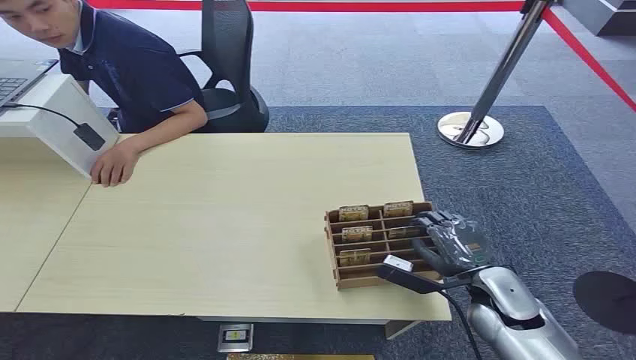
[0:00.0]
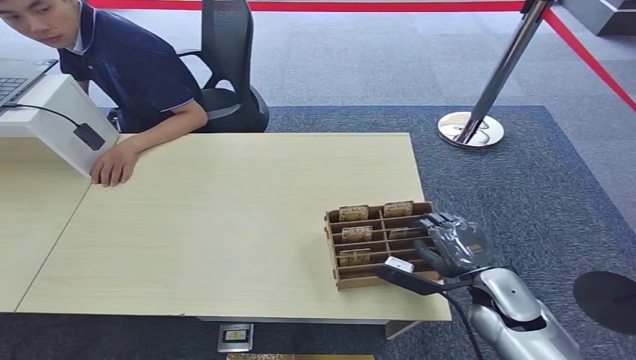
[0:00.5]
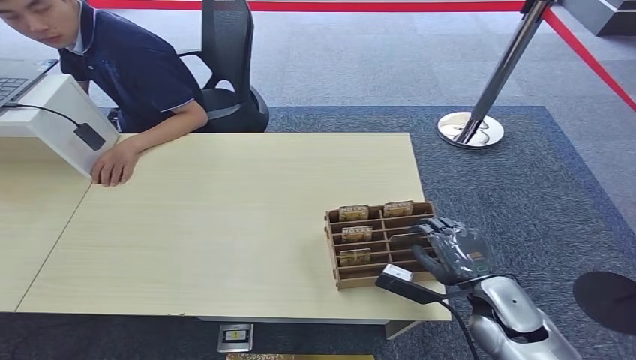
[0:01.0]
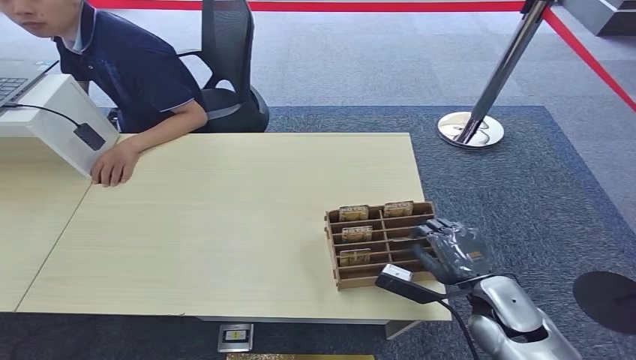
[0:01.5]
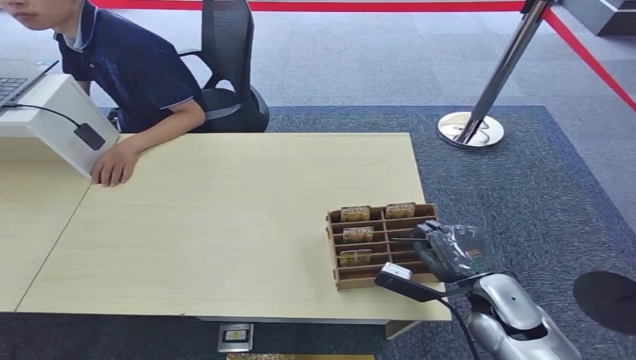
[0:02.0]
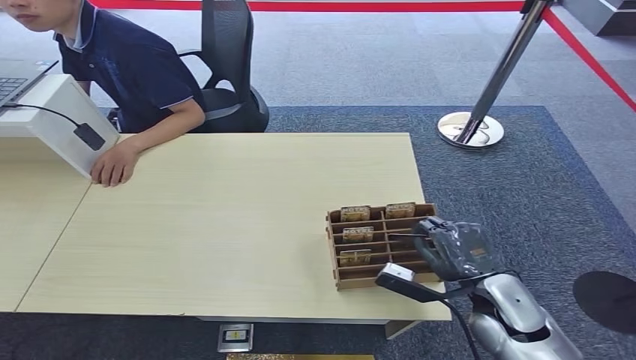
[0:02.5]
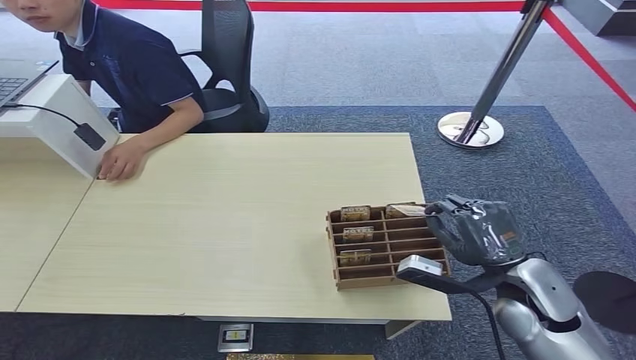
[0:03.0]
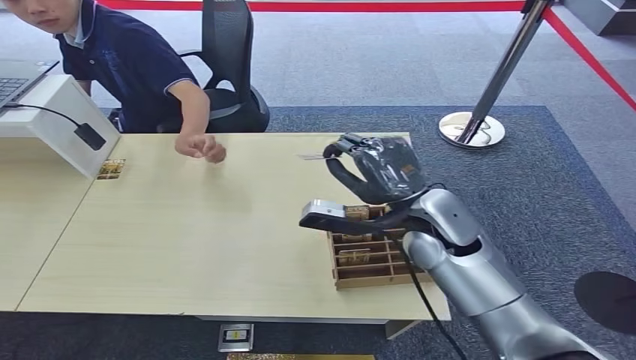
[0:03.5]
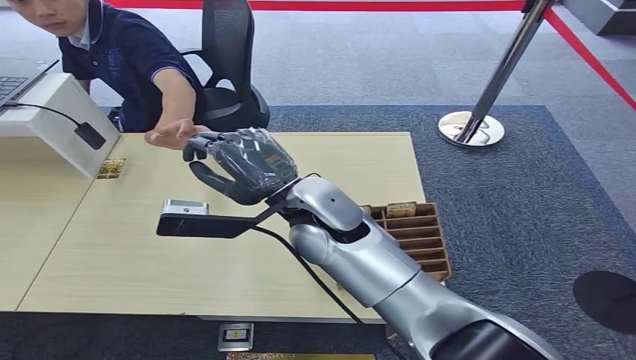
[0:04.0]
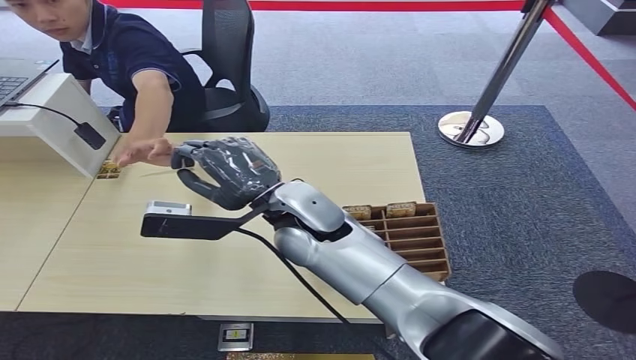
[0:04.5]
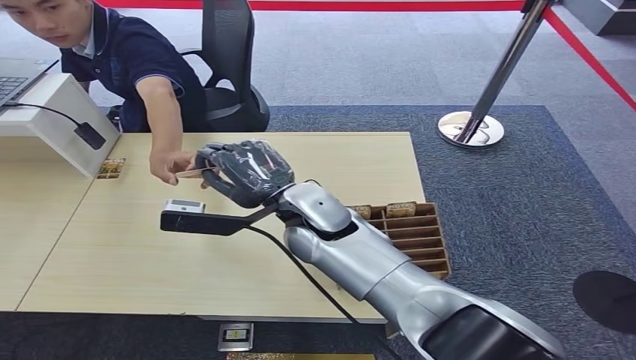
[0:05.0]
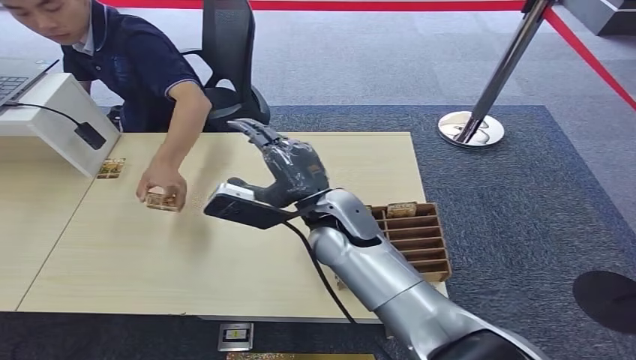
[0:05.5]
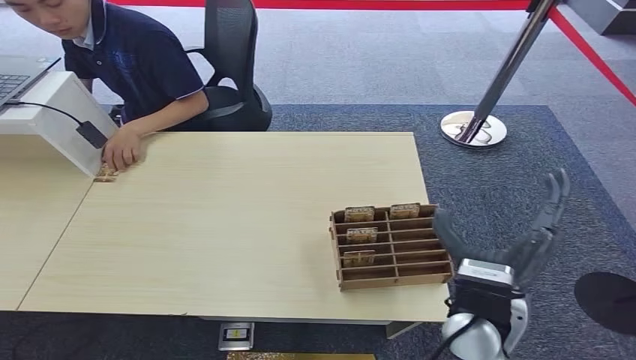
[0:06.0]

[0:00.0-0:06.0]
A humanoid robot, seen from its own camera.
Step, 0:00.0 to 0:03.0: Pick up the key card from the card box.
Step, 0:03.5 to 0:06.0: Hand the key card to the target.
0:02.0 to 0:04.0: The right hand heads to the left and upward, covering some 30 cm.

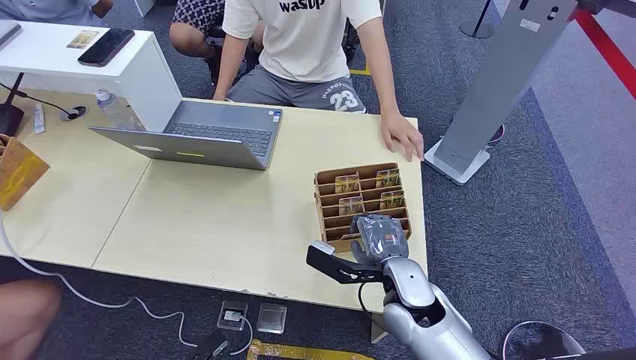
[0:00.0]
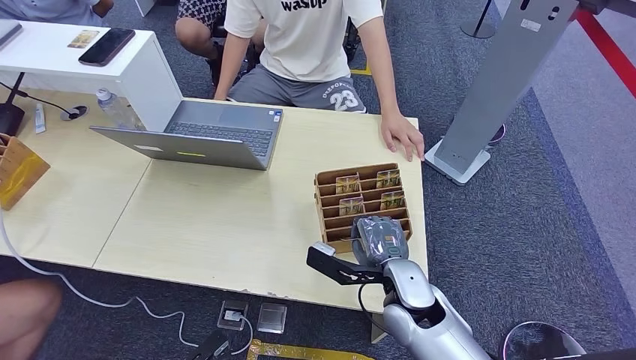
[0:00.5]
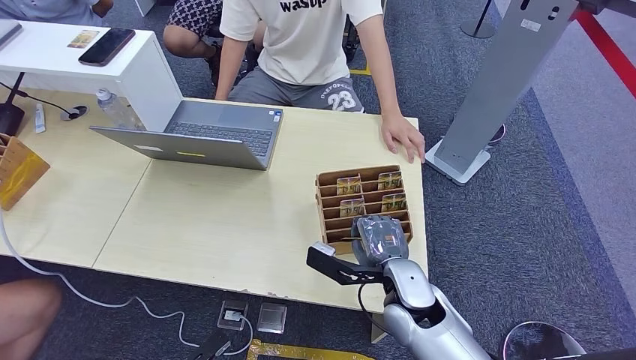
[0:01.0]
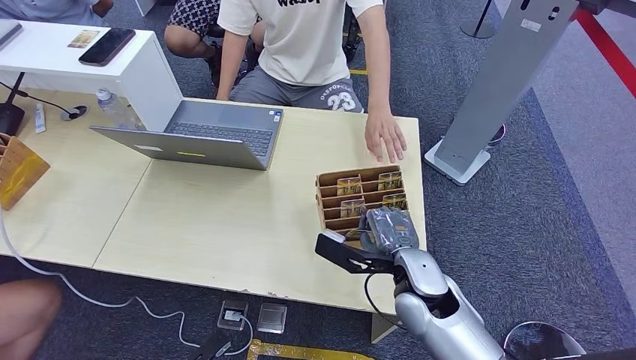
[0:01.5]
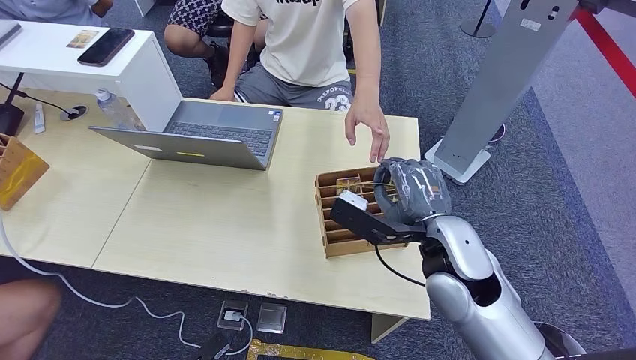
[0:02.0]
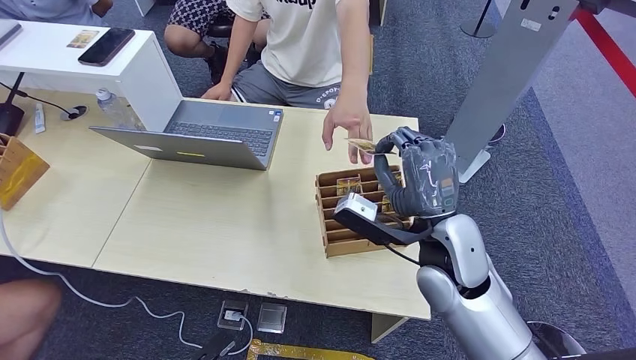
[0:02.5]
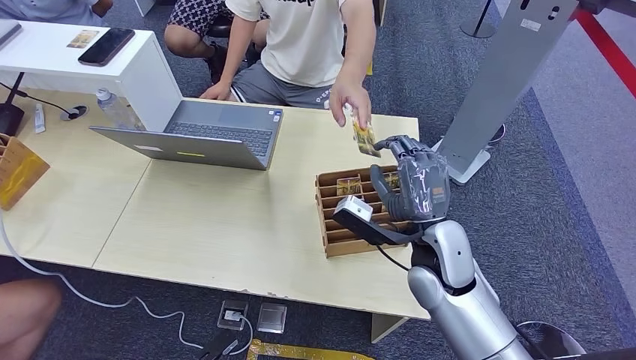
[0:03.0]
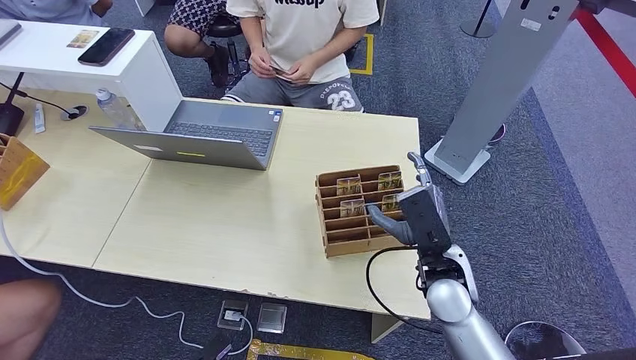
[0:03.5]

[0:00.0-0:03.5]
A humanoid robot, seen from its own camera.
Step, 0:00.0 to 0:01.5: Pick up the key card from the card box.
Step, 0:02.0 to 0:03.5: Hand the key card to the target.
0:02.0 to 0:03.5: The right hand moves downward, about 5 cm.

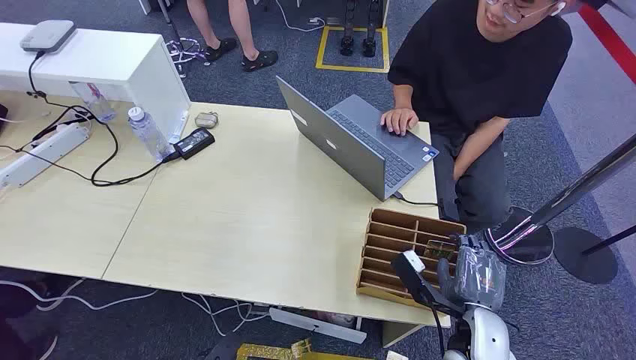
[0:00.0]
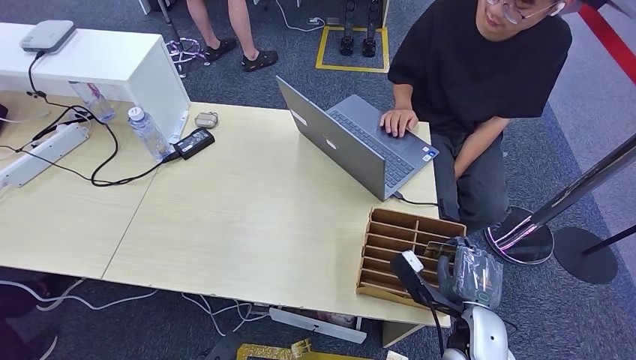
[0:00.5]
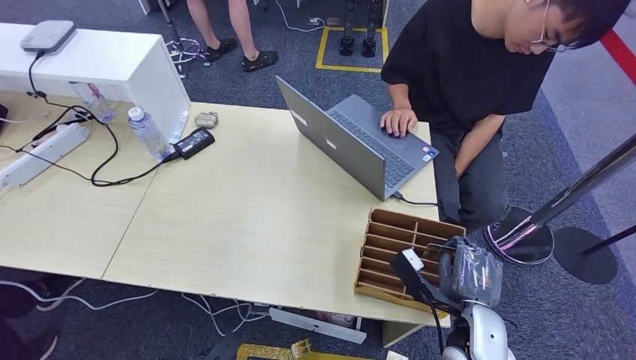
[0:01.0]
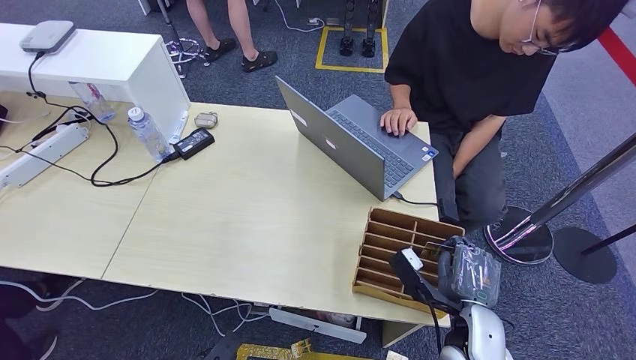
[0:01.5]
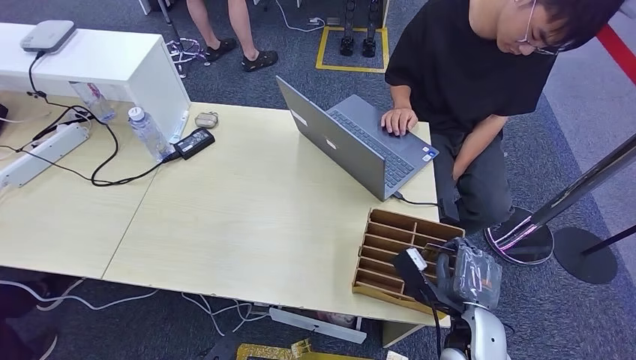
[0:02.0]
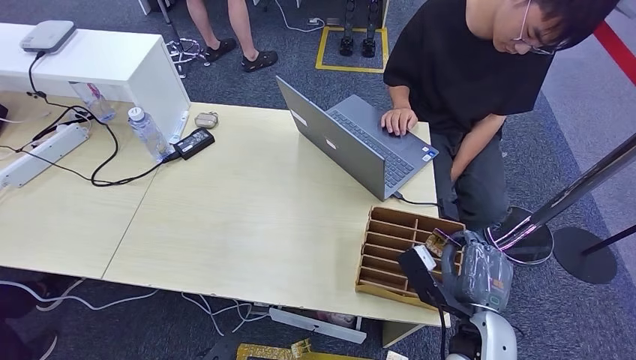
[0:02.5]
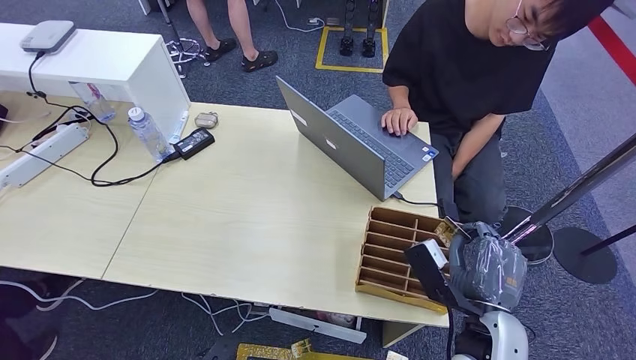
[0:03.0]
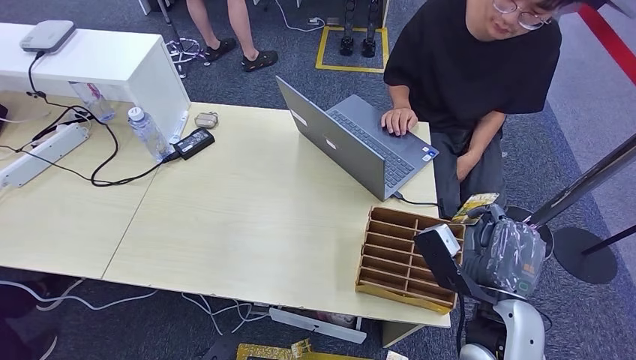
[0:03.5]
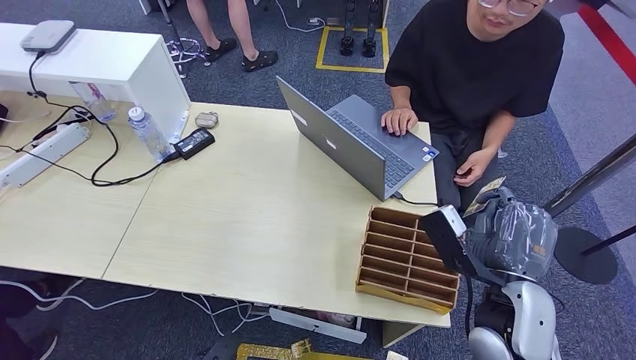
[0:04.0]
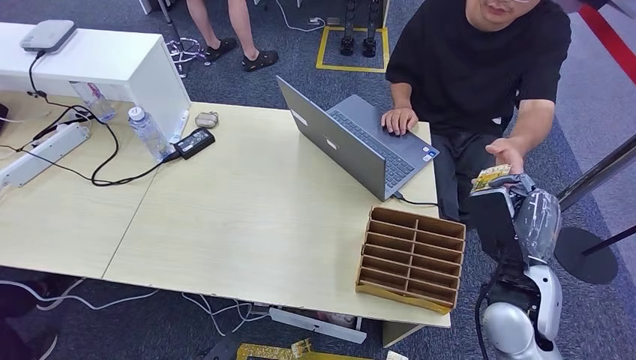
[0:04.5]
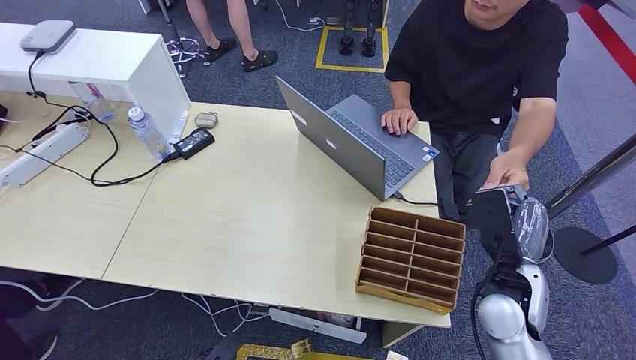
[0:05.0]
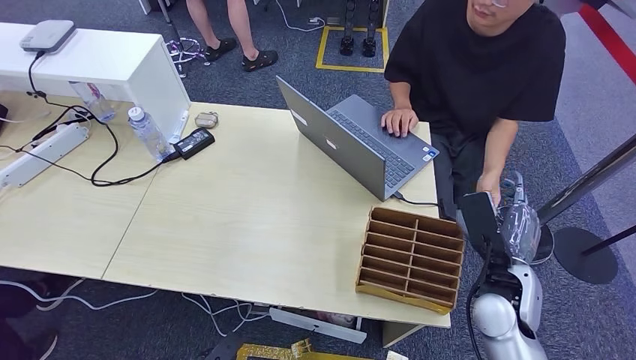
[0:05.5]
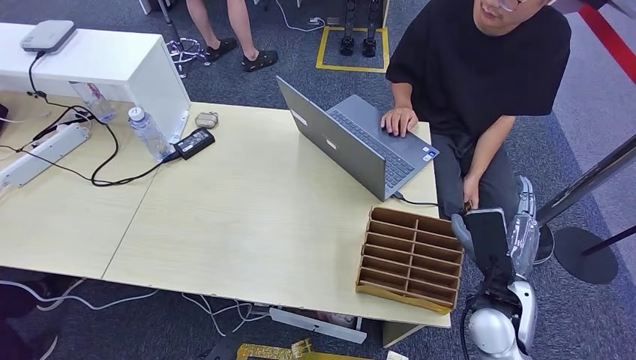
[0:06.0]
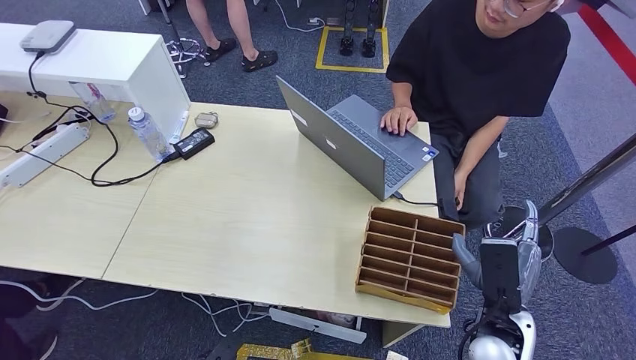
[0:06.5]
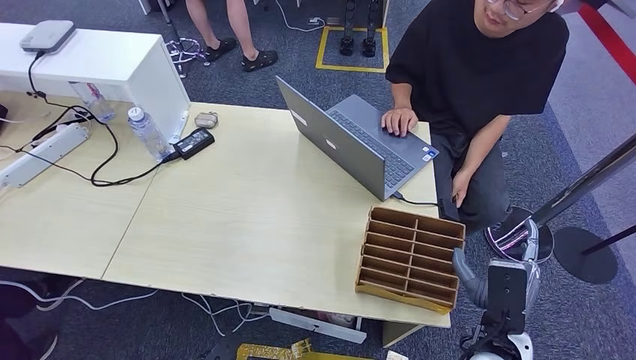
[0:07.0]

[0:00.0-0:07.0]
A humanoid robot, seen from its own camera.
Step, 0:00.0 to 0:02.5: Pick up the key card from the card box.
Step, 0:03.5 to 0:07.0: Hand the key card to the target.
0:02.0 to 0:03.5: The right hand is displaced upward by approximately 10 cm.
0:03.5 to 0:05.0: The right hand is displaced forward by roughly 5 cm.
0:05.0 to 0:07.0: The right hand goes about 10 cm backward and downward.

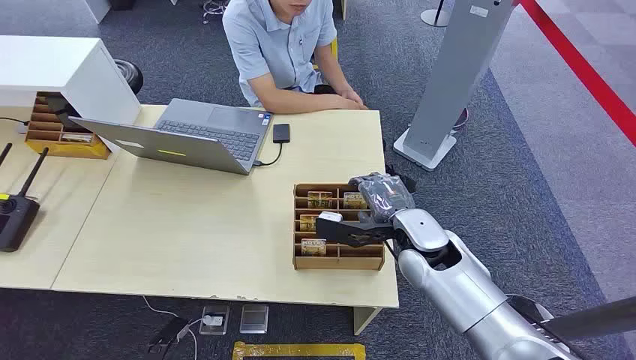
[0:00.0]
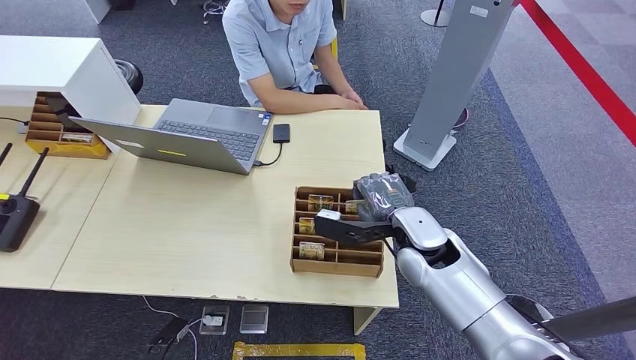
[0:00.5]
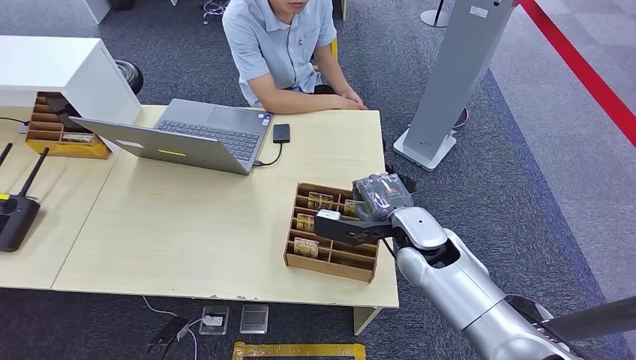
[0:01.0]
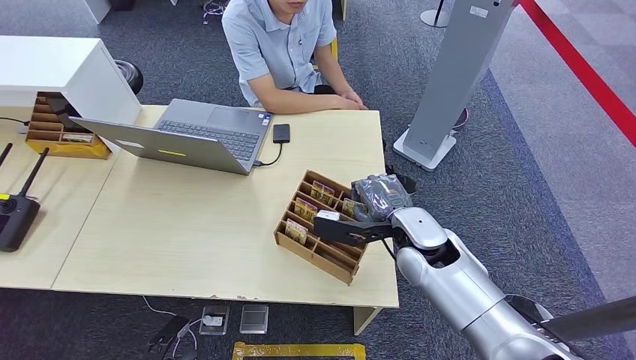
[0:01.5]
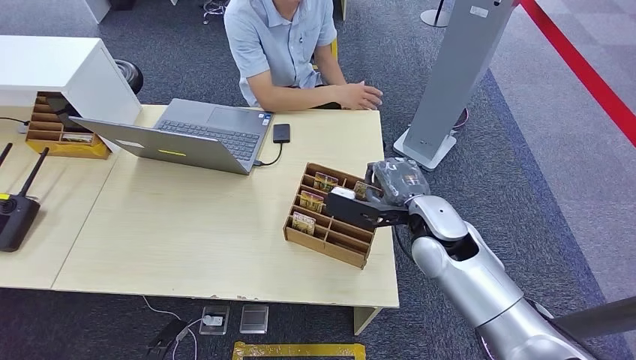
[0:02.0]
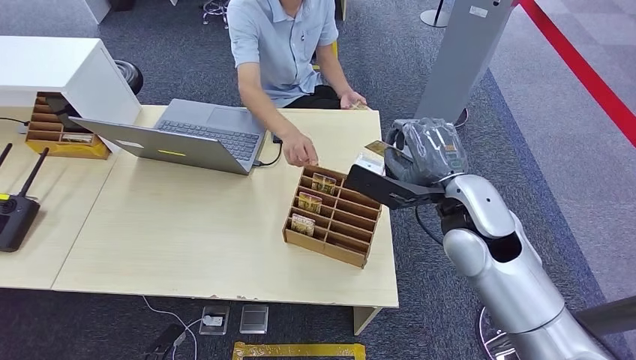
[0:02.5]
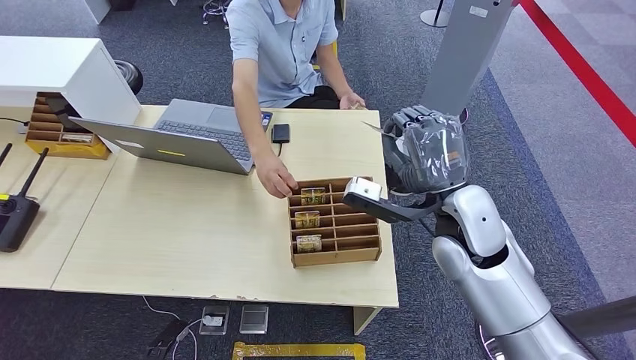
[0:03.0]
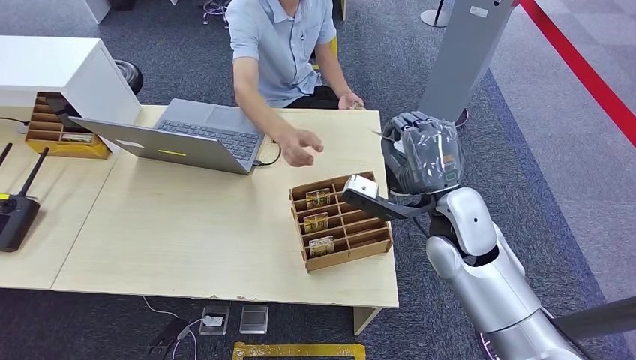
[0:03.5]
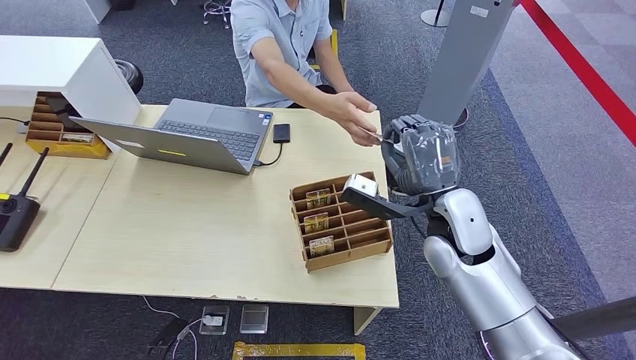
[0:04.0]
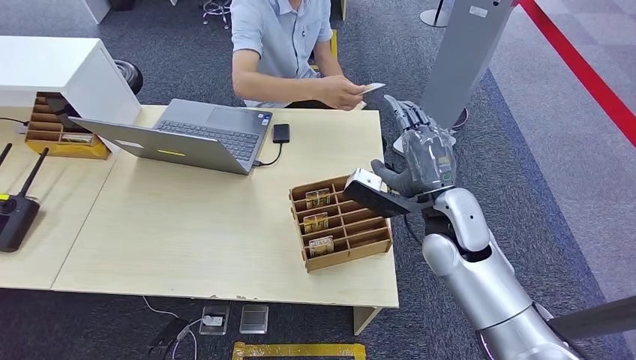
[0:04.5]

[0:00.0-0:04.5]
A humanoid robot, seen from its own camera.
Step, 0:00.0 to 0:02.0: Pick up the key card from the card box.
Step, 0:03.5 to 0:04.5: Hand the key card to the target.
